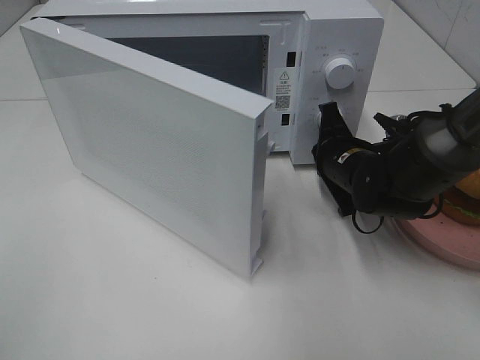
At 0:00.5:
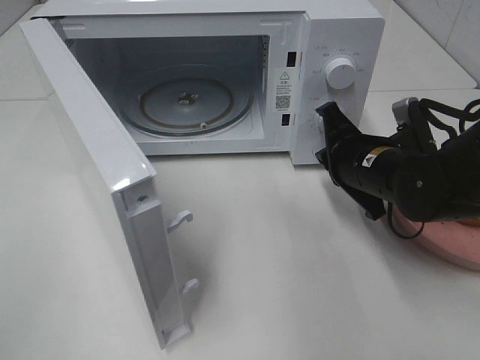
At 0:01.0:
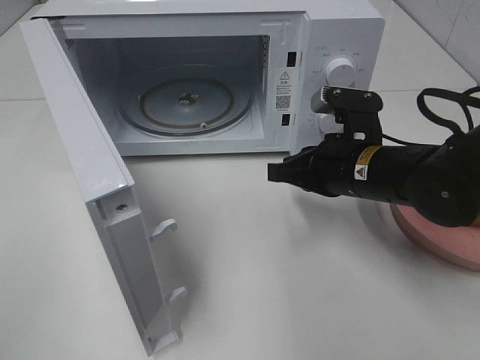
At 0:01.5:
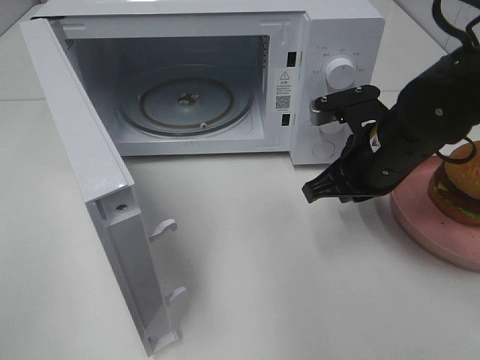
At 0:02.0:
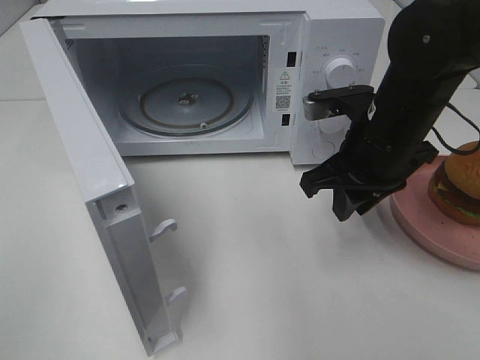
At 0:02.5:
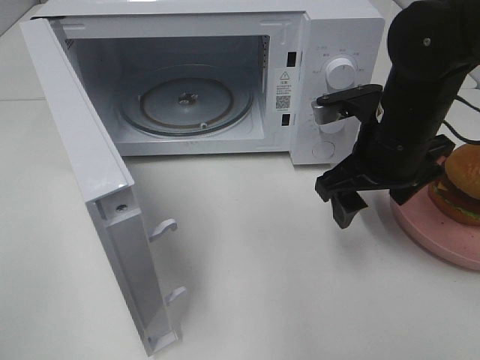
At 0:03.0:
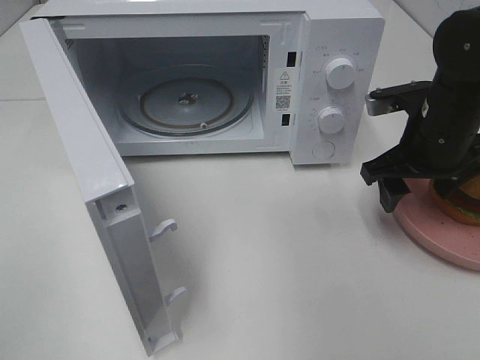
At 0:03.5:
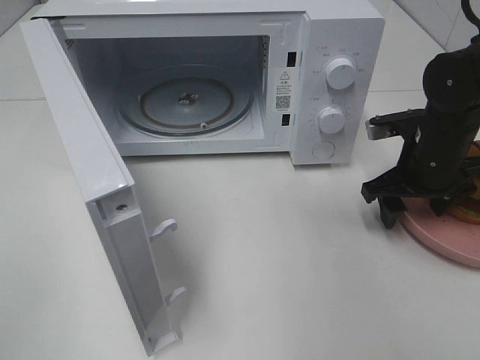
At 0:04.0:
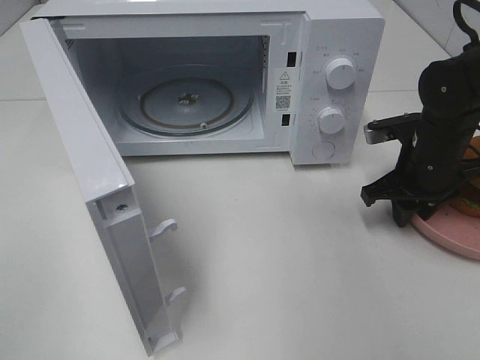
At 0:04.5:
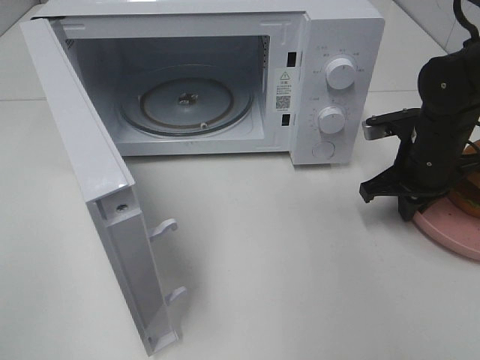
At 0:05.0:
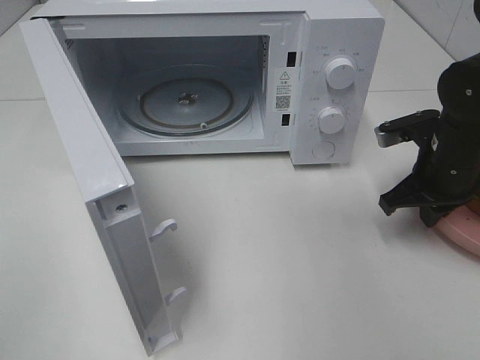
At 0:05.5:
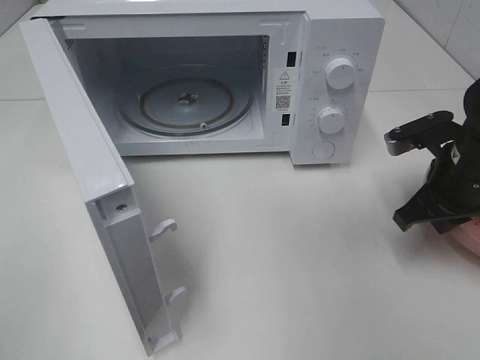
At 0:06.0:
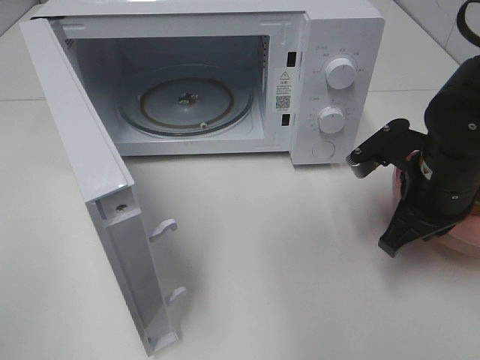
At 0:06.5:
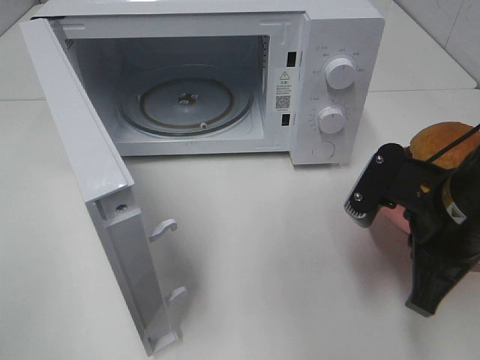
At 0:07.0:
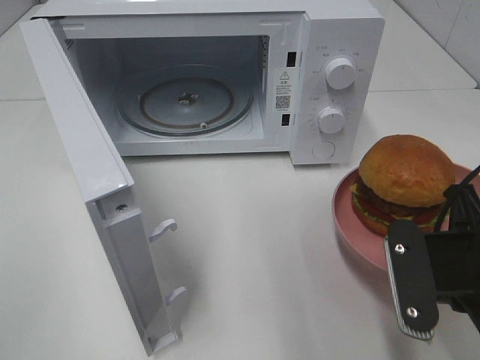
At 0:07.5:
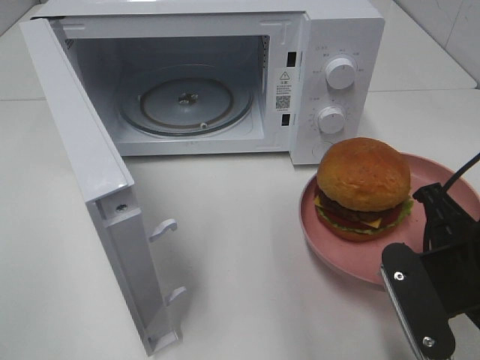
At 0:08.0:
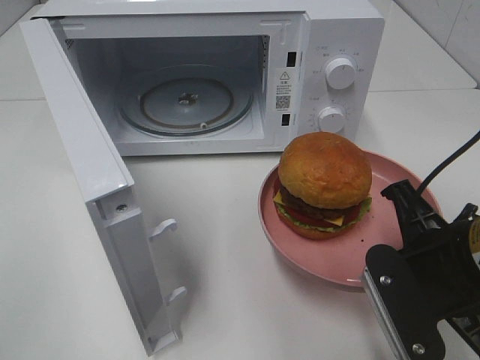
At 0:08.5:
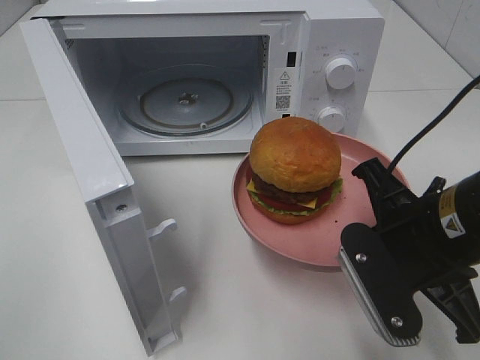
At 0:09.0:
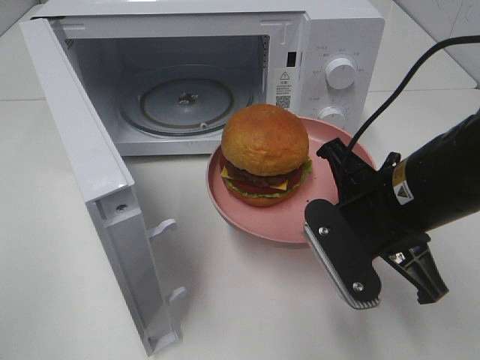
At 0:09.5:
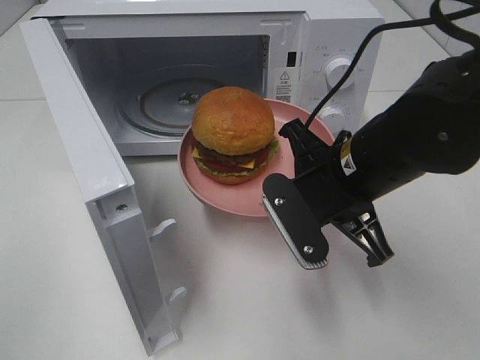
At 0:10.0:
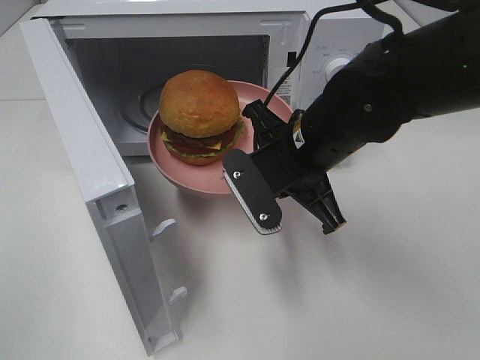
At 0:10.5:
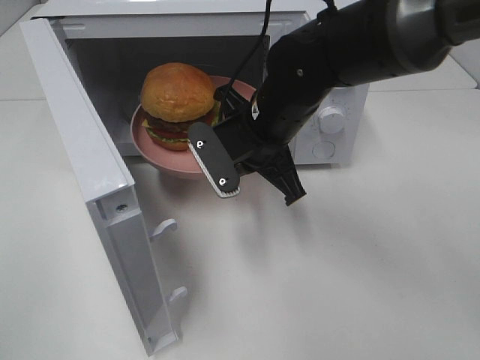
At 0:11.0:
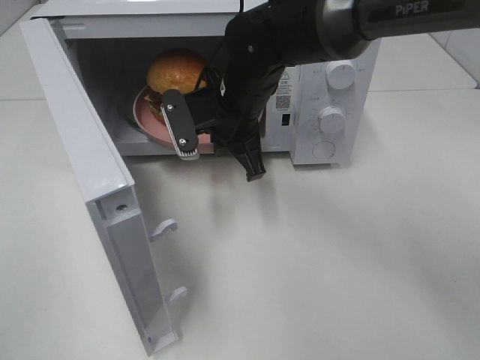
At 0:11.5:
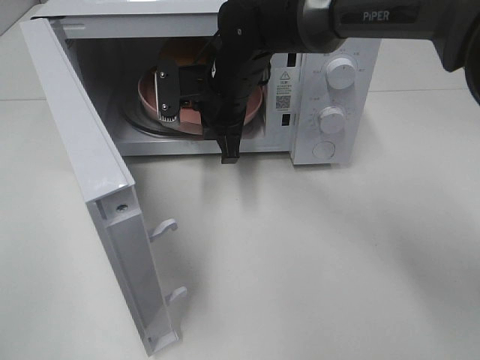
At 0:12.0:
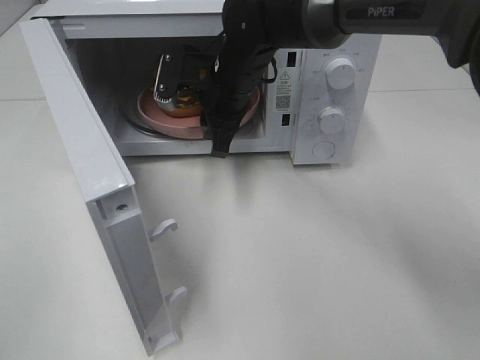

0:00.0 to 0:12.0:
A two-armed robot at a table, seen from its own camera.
Task of the whole recording: Heat the burger.
Step, 0:00.5 to 0:04.5: Right hand: grab the plate with the hamburger.
Step, 0:05.0 to 0:12.0: Right hand: place the plate in the microwave.
0:00.0 to 0:02.0: The right gripper travels upward and backward by about 10 cm, and opens up.
0:02.0 to 0:04.0: The right gripper shifts roughly 15 cm to the right, downward and forward, and opens and closes again.
0:04.0 to 0:06.0: The right gripper travels backward by approximately 10 cm, and closes up.
0:06.0 to 0:08.0: The right gripper goes roughly 10 cm backward.
0:08.0 to 0:10.0: The right gripper is displaced forward and to the left by roughly 15 cm.
0:10.0 to 0:12.0: The right gripper goes about 15 cm forward and to the left, and opens up.

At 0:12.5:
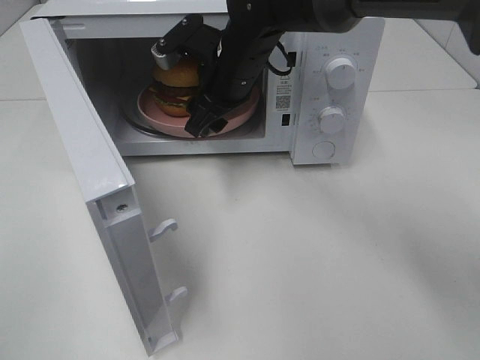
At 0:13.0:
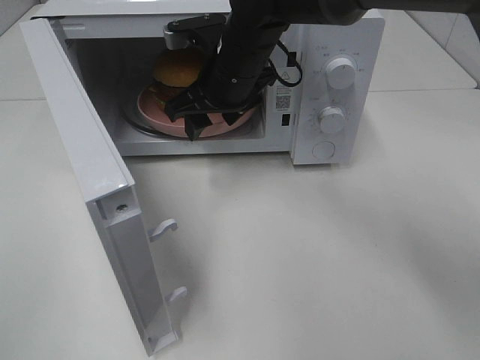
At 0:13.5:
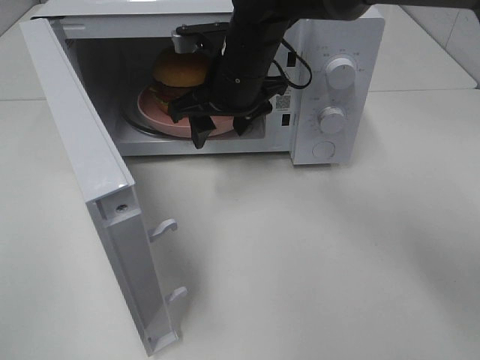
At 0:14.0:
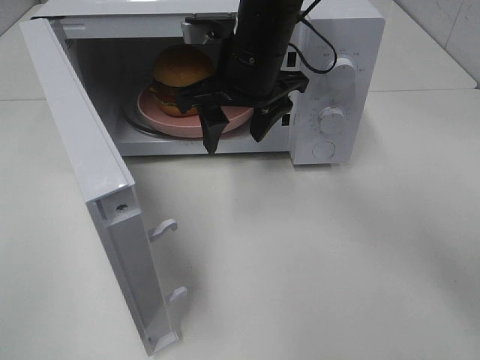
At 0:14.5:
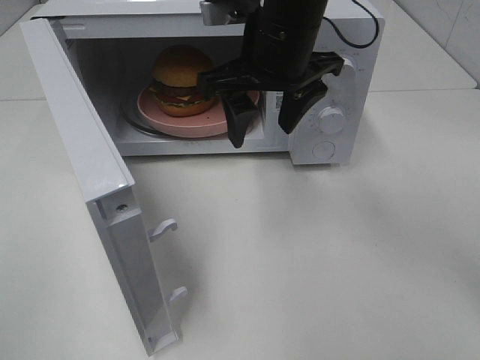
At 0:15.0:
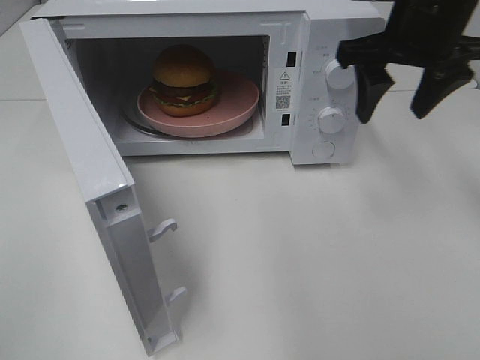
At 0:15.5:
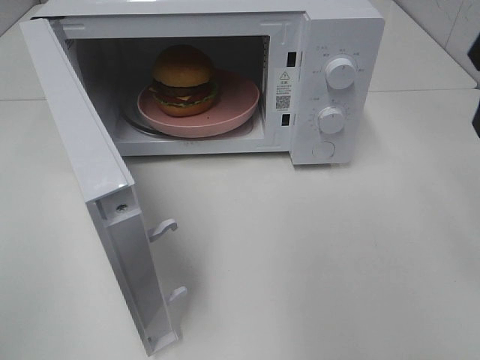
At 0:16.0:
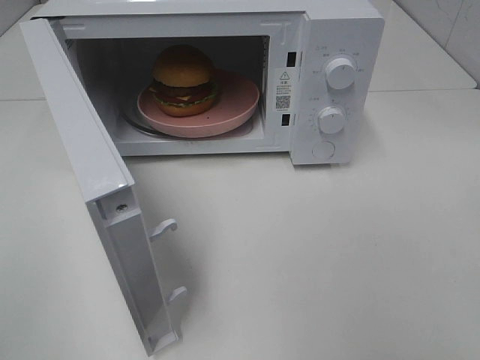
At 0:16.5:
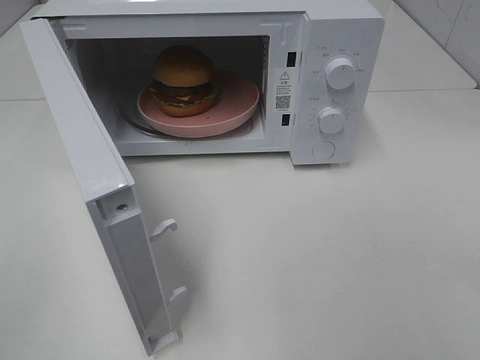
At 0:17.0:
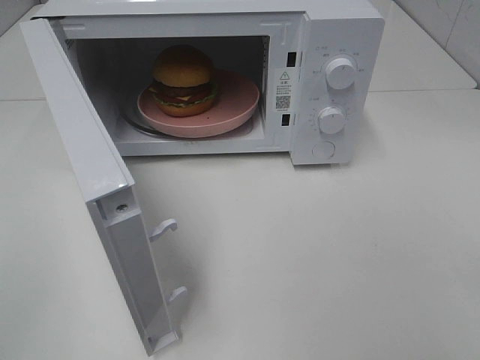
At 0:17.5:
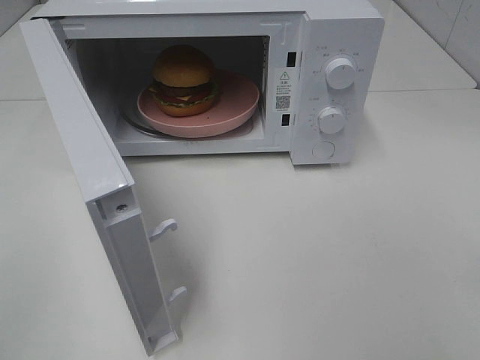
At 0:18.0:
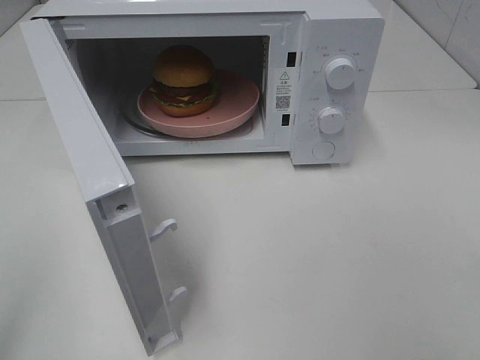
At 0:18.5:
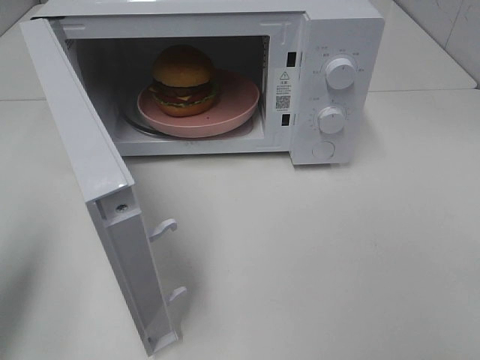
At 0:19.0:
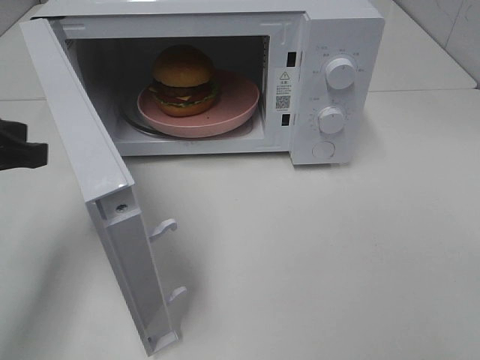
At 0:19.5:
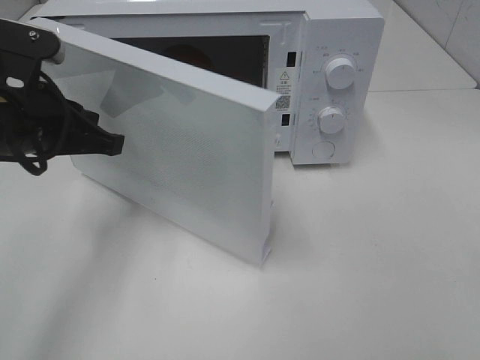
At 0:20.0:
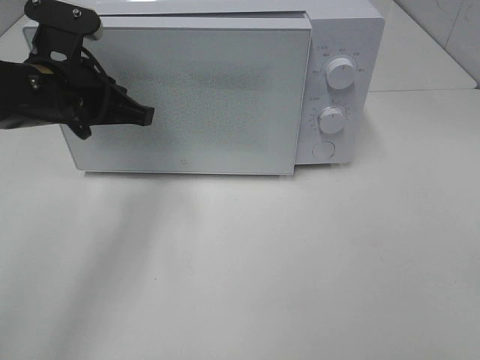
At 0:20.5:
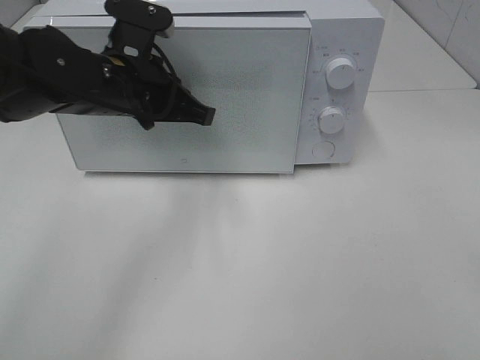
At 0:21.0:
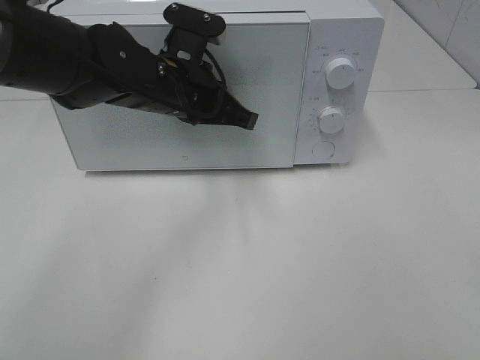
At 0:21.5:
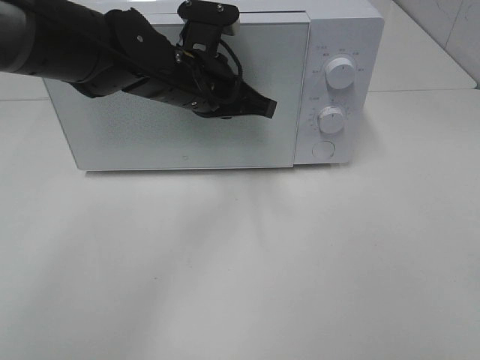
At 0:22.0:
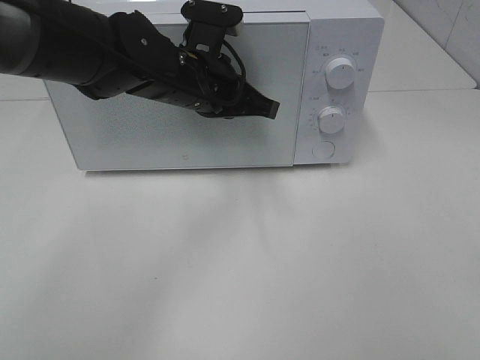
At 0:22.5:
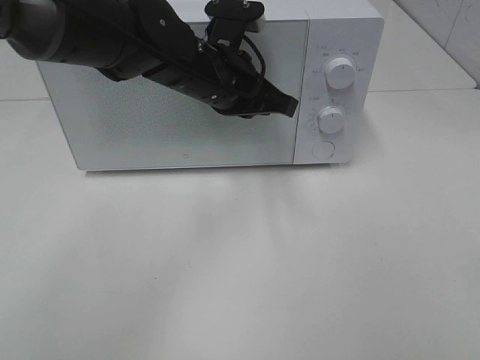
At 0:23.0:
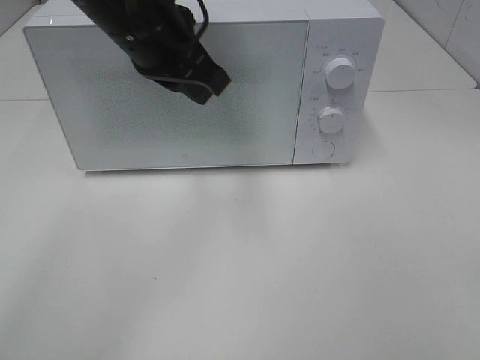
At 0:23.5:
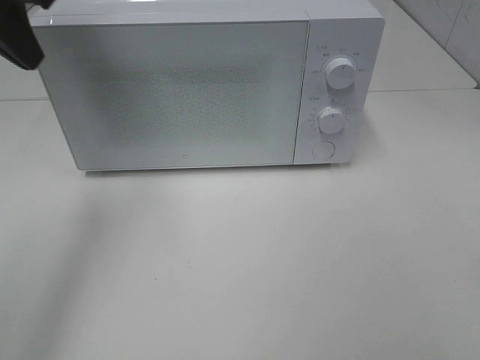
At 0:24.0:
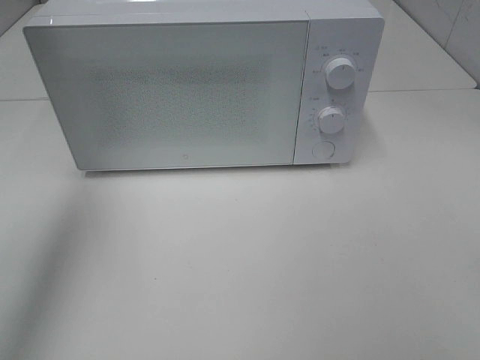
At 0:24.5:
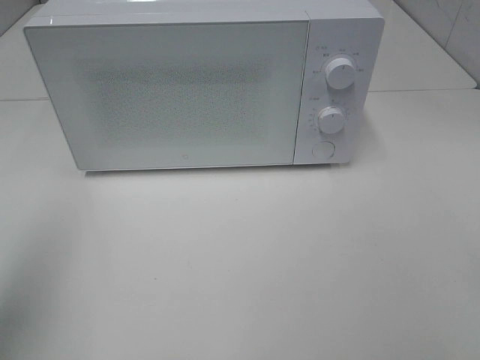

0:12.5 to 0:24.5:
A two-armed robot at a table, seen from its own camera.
Task of the whole recording: Heat the burger.
Step, 0:12.5 to 0:22.5: Left hand: close the microwave door.
0:12.5 to 0:14.5: The right gripper travels upward and backward by roughly 10 cm.
0:14.5 to 0:16.5: The right gripper goes roughly 40 cm backward and to the right.
0:16.5 to 0:18.5: The left gripper is displaced forward by roughly 15 cm.
0:18.5 to 0:20.5: The left gripper shifts about 30 cm to the right and forward.
0:20.5 to 0:22.5: The left gripper goes some 10 cm to the right.
0:22.5 to 0:24.5: The left gripper travels to the left, backward and upward by about 40 cm.

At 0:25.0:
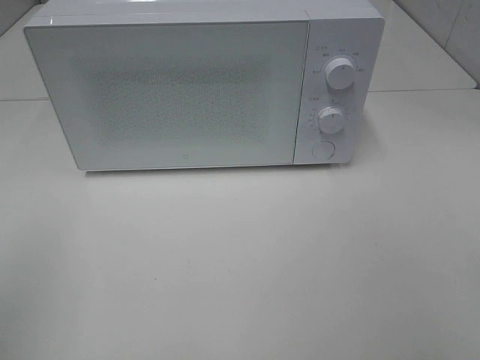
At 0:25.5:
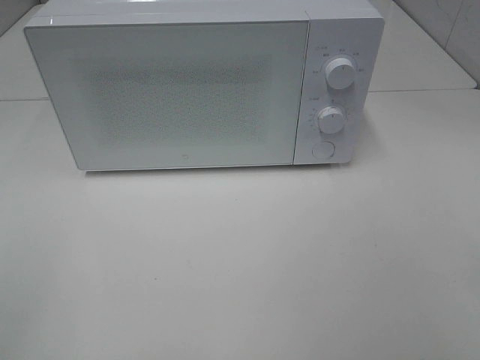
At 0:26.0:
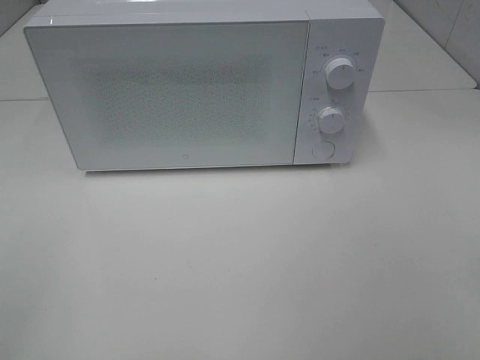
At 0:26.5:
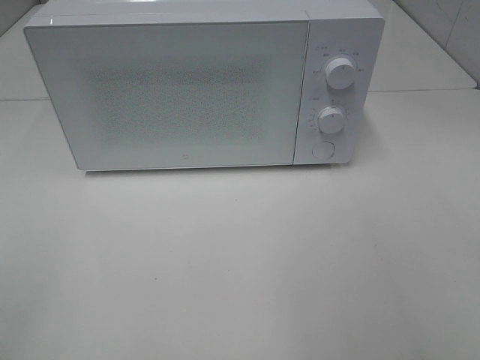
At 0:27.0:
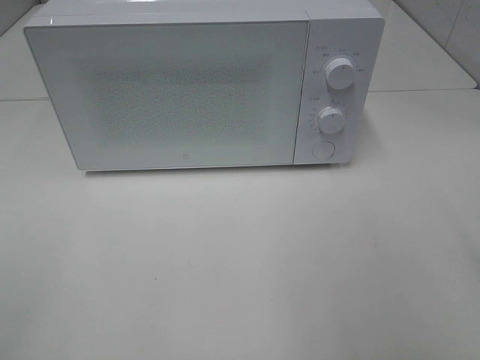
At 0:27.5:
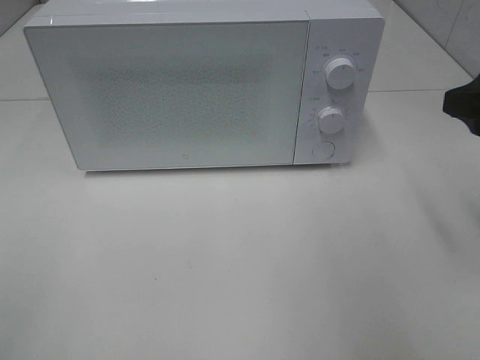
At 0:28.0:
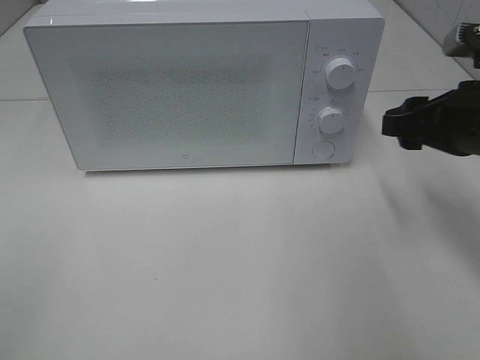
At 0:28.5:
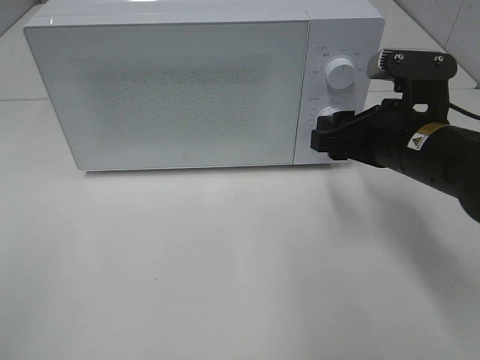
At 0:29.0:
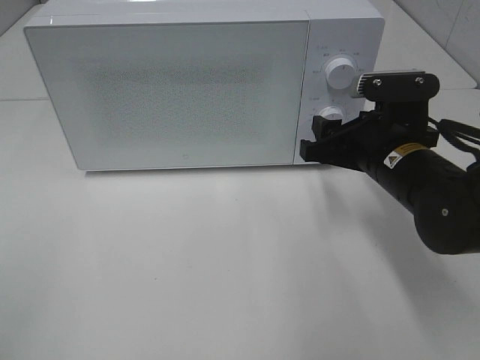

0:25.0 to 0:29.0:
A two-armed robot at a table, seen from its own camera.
Task of the whole recording: Heat the burger.
0:27.0 to 0:29.0: The right gripper shifts roughly 25 cm forward, downward and to the left.
